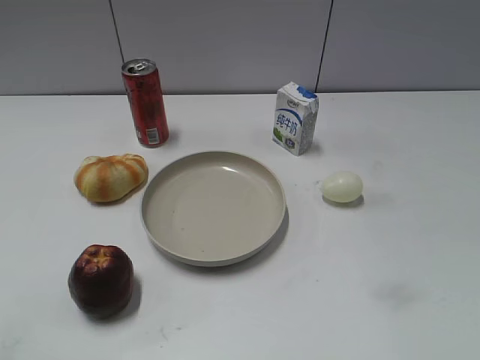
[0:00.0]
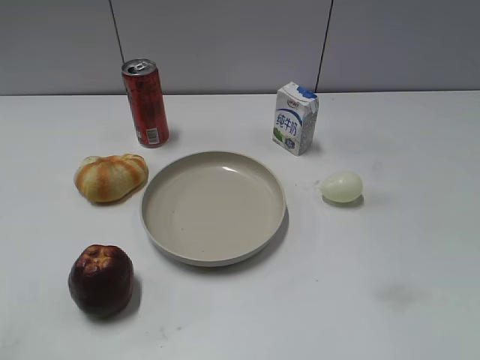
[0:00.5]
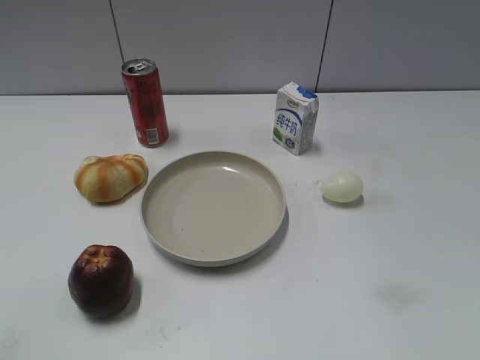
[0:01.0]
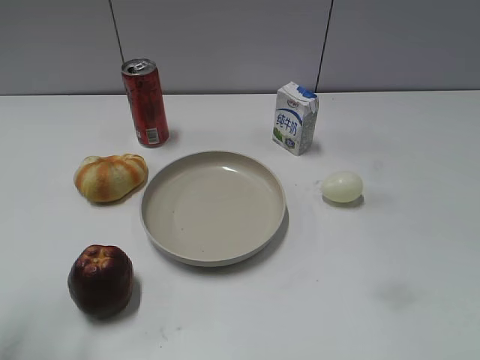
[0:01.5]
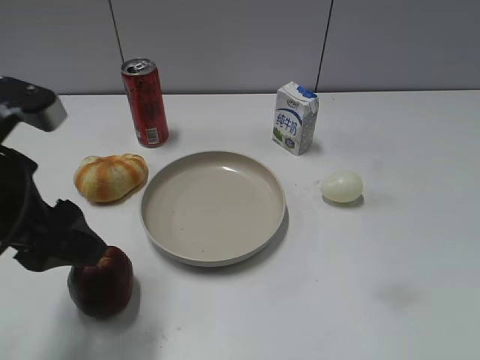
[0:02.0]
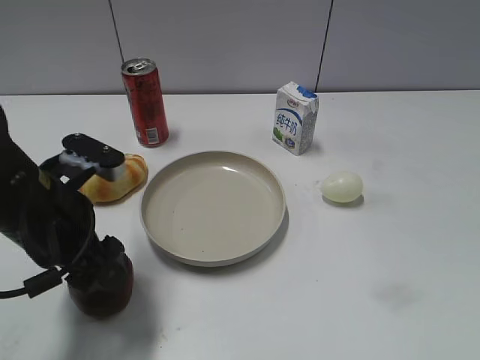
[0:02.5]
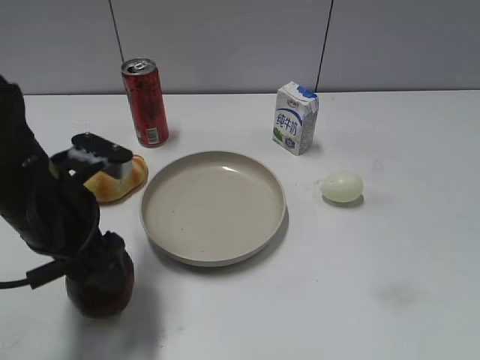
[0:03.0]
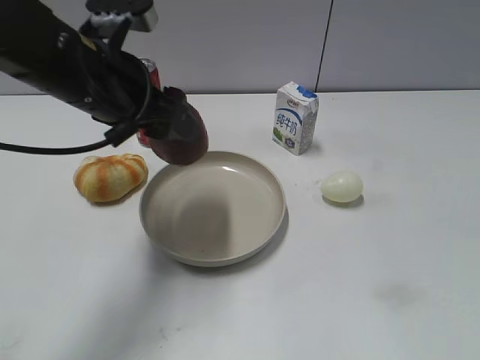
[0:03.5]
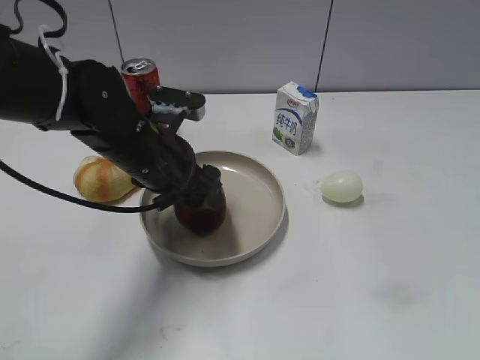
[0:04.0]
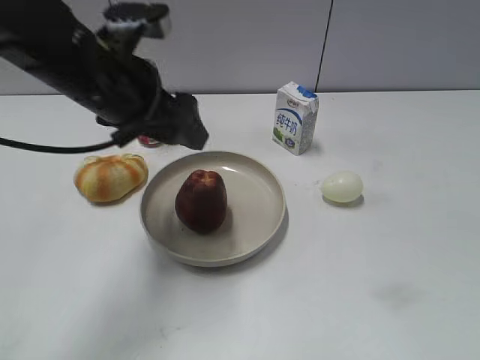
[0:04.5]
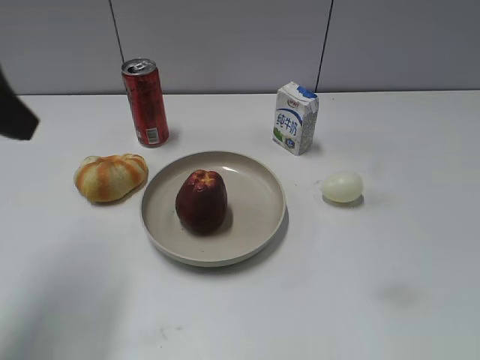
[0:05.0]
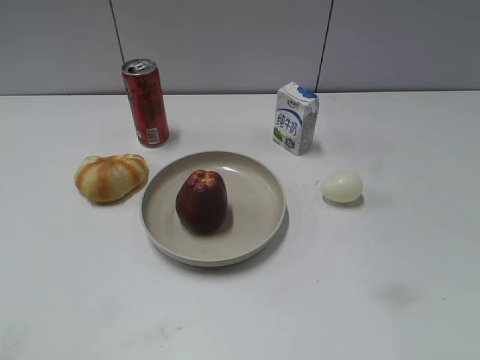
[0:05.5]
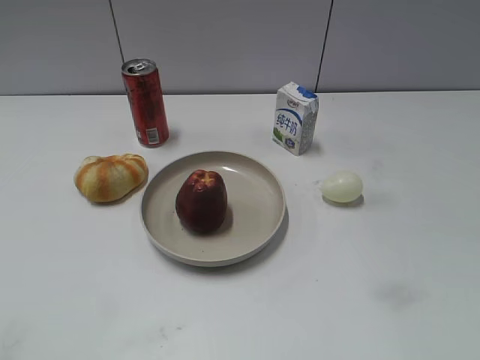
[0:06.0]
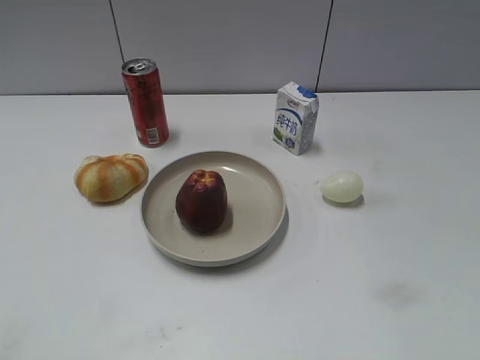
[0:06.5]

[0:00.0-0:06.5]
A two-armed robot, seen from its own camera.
Step, 0:01.0 to 0:02.5: Grasp the apple with left gripper.
Step, 0:03.0 to 0:04.0: Place the apple on the plate with left gripper.
0:02.0 to 0:04.5: The left gripper is displaced forward and to the right by about 15 cm.
0:04.5 to 0:06.5: The left gripper goes about 35 cm backward and to the left, and closes its fingers.
